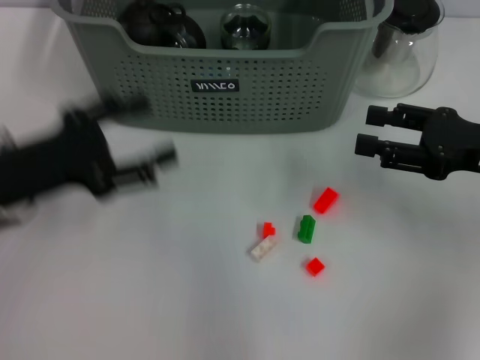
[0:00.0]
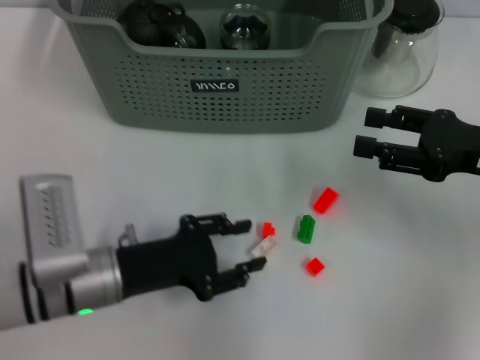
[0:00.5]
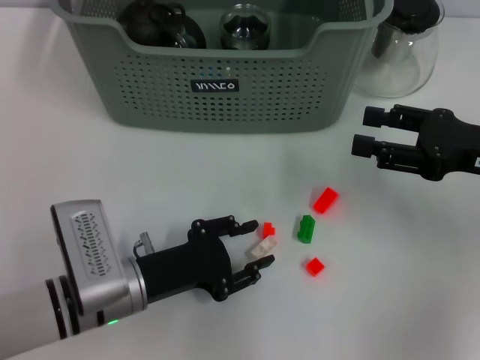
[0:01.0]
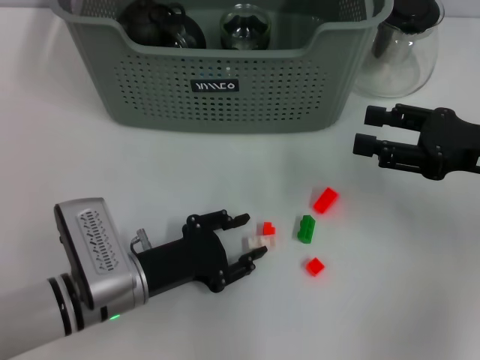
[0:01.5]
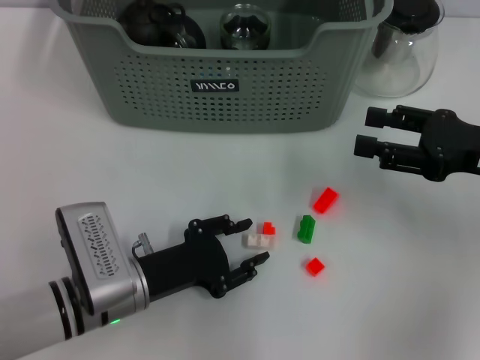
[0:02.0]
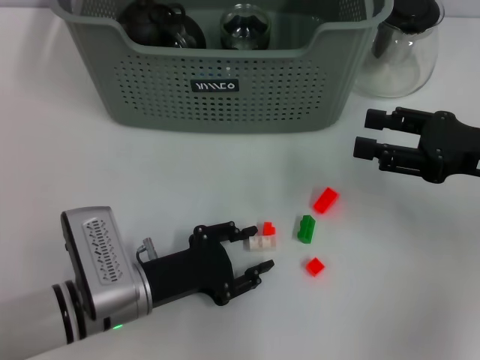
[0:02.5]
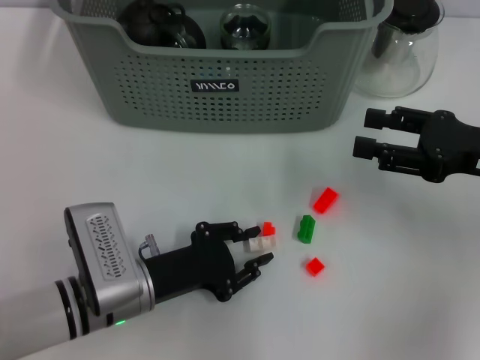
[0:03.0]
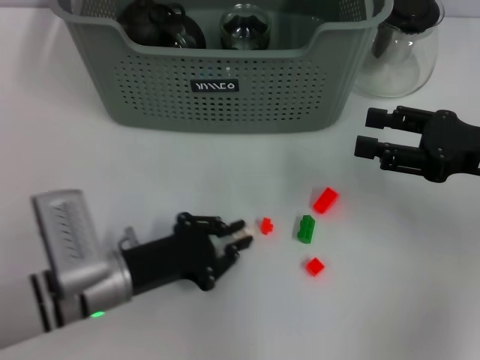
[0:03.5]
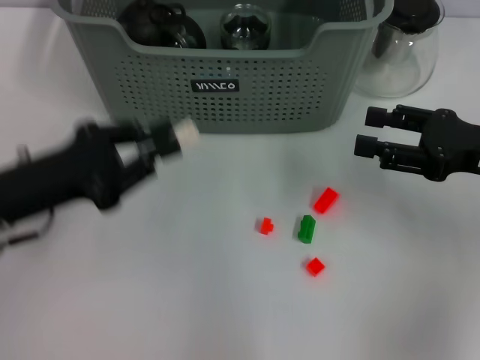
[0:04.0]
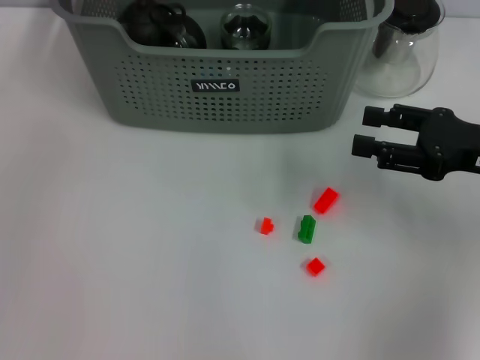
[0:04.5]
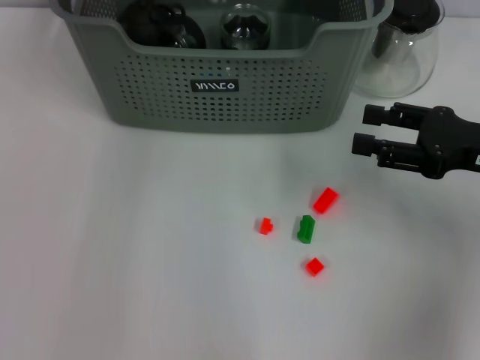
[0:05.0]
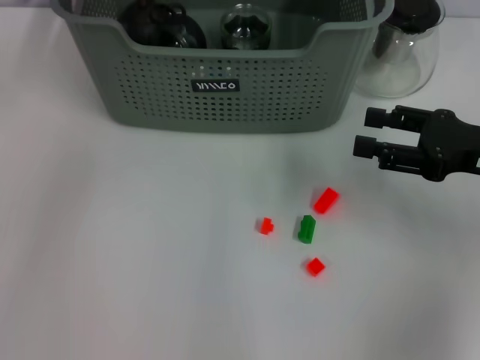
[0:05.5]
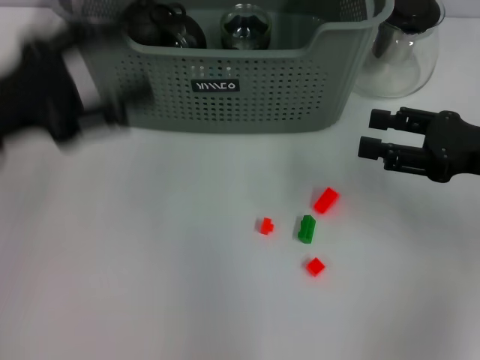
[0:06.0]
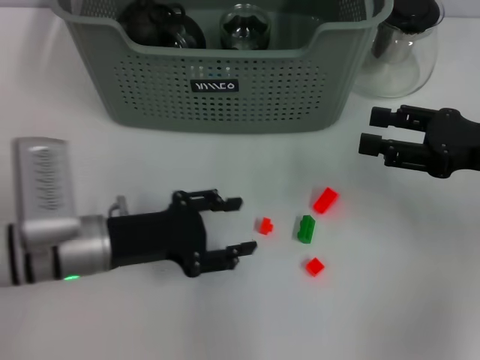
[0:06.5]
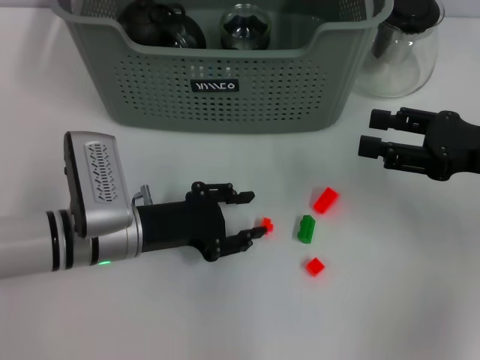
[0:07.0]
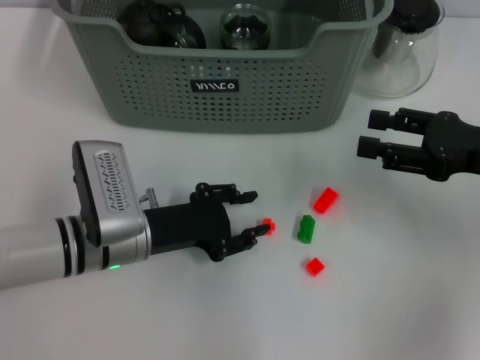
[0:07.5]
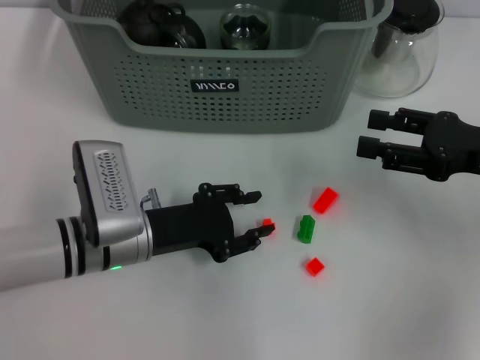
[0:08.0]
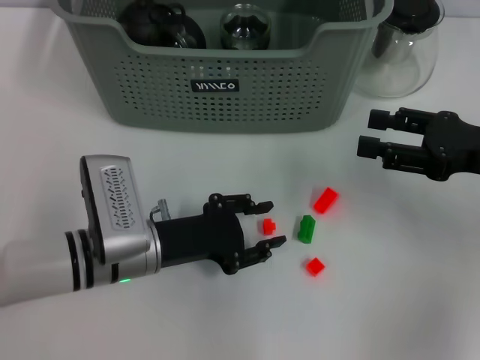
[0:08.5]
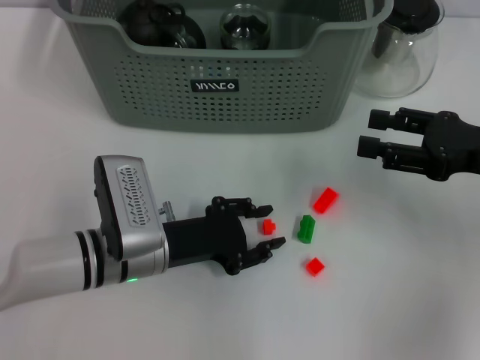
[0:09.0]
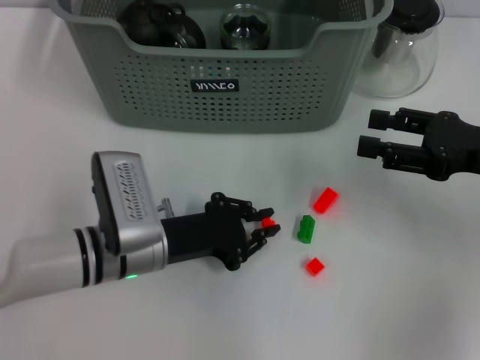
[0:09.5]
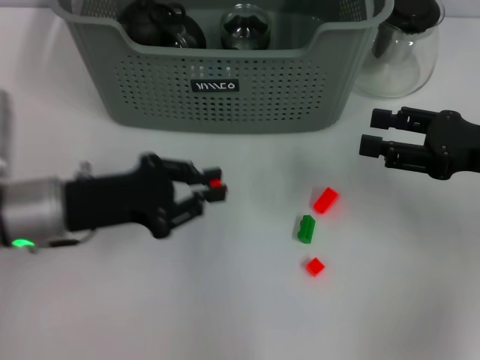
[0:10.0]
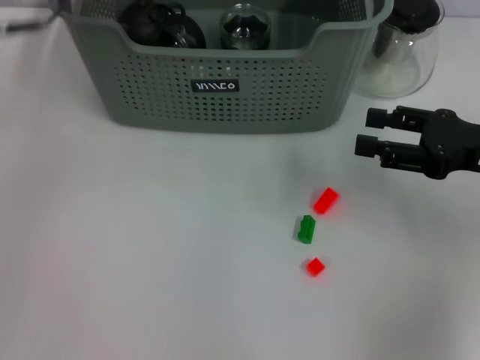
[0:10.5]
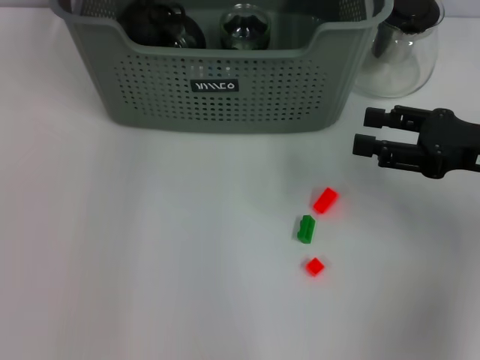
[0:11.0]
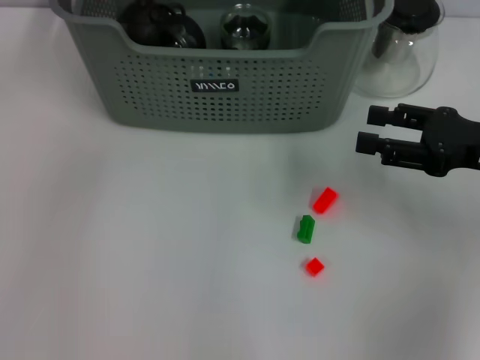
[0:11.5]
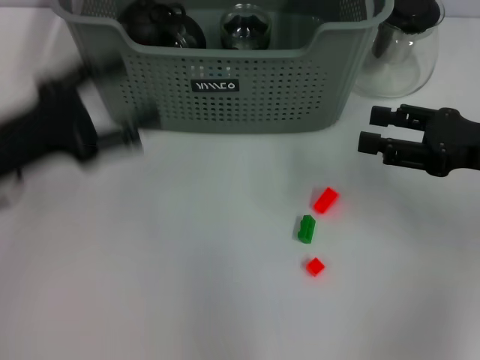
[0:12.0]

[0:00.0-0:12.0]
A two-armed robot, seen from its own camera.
Task of the whole recording: pick up the teacup on the table and place it into the storage bin, pick up the block on the table and place it into the storage bin.
Step, 0:00.0 to 0:03.0: Grasp the white block with left gripper.
Step, 0:03.5 to 0:05.0: Place the white block in the storage box with left gripper.
Step, 0:05.5 to 0:09.0: Grasp the orange block with left gripper.
Step, 0:09.5 to 0:11.0: Place the orange block in the storage box with left gripper.
0:00.0 to 0:02.0: The left gripper moves downward and to the right, approximately 15 cm.
0:02.0 to 0:04.0: The left gripper goes some 15 cm upward and to the left, and closes its fingers.
0:04.0 to 0:06.0: The left gripper goes some 5 cm upward, goes forward and returns, some 20 cm each way, and opens.
0:06.0 to 0:08.0: The left gripper moves downward and to the right, about 20 cm, and closes its fingers.
0:08.0 to 0:10.0: The left gripper goes approximately 10 cm to the left and upward, and closes up.
0:10.0 to 0:12.0: The left gripper heads to the left, covering about 5 cm, reaches about 20 cm forward, then returns, and opens its fingers.

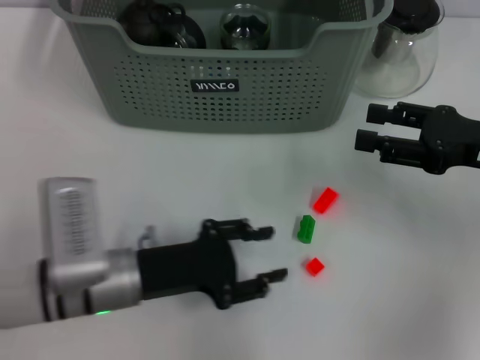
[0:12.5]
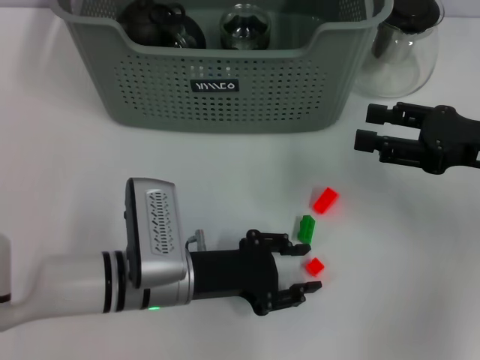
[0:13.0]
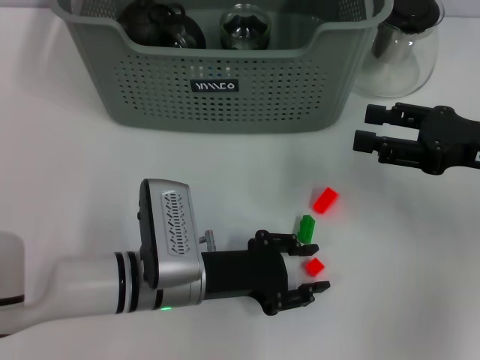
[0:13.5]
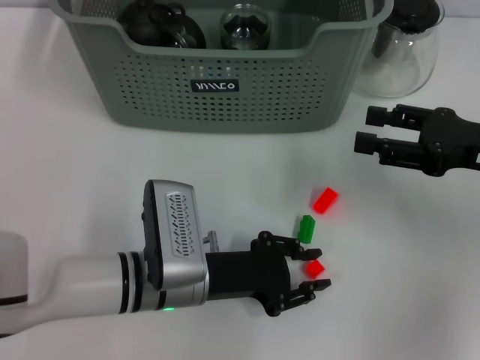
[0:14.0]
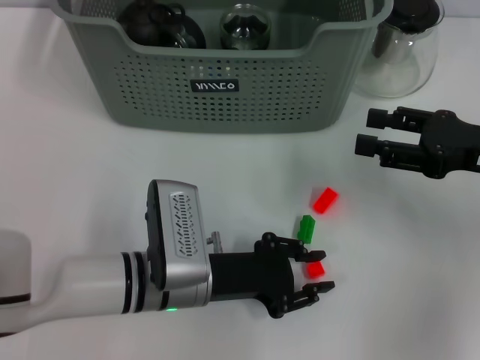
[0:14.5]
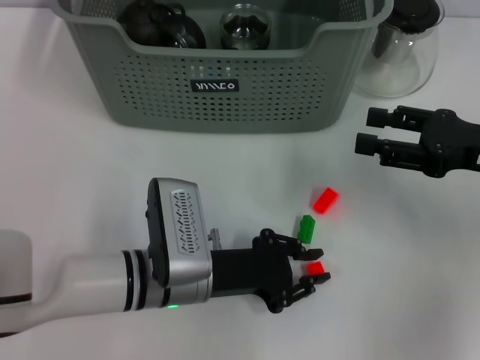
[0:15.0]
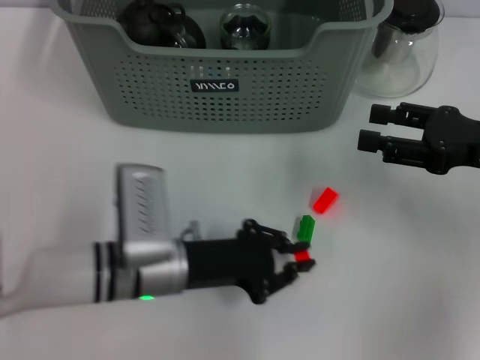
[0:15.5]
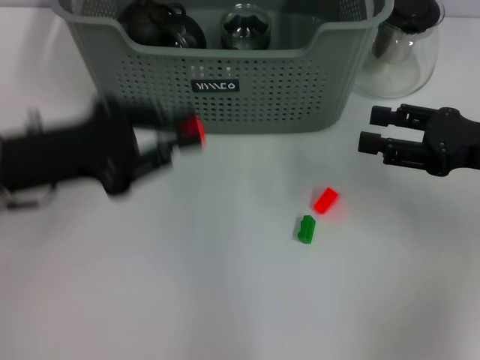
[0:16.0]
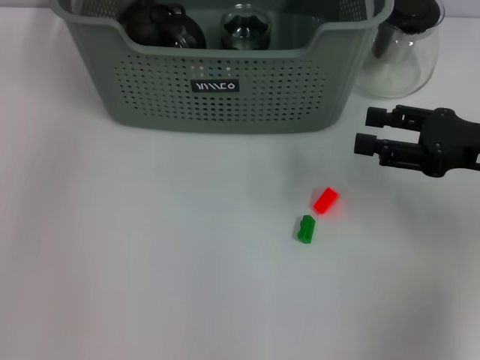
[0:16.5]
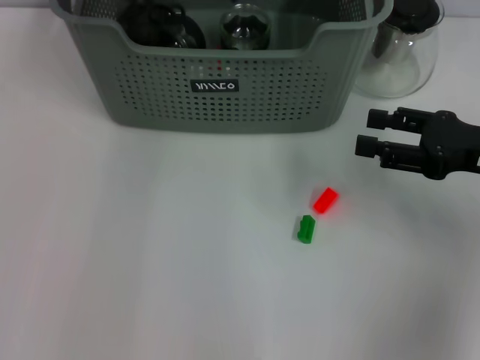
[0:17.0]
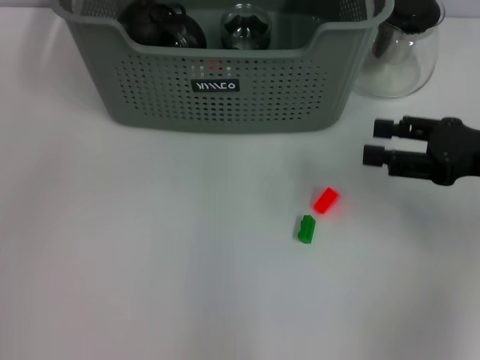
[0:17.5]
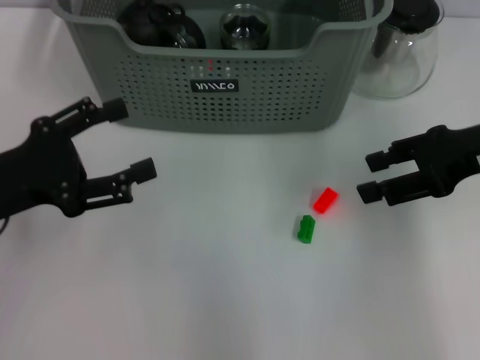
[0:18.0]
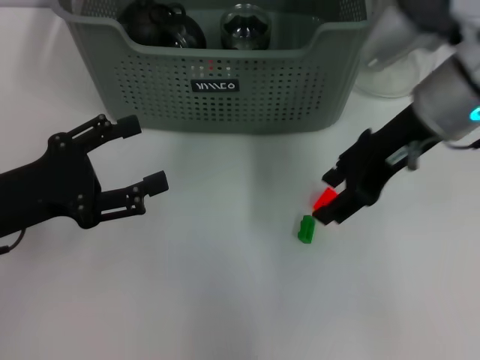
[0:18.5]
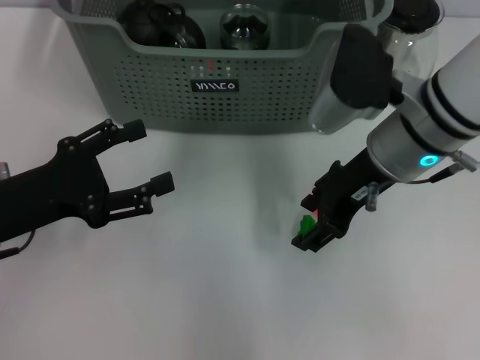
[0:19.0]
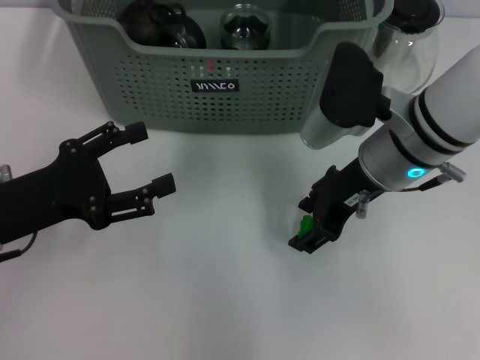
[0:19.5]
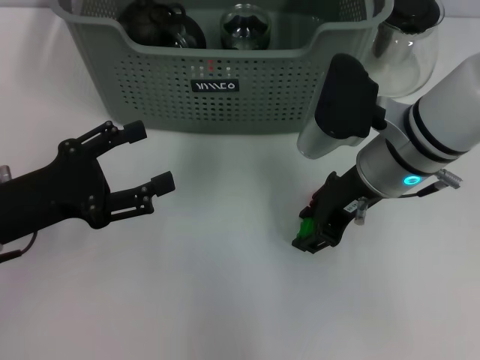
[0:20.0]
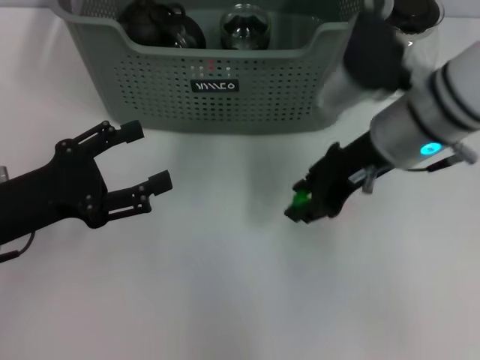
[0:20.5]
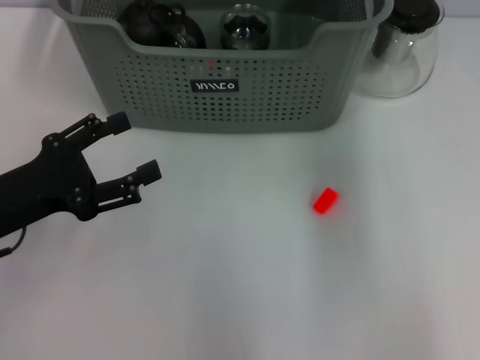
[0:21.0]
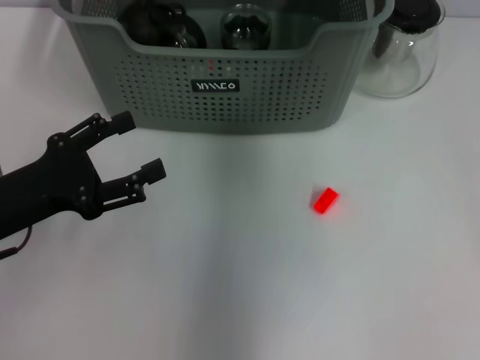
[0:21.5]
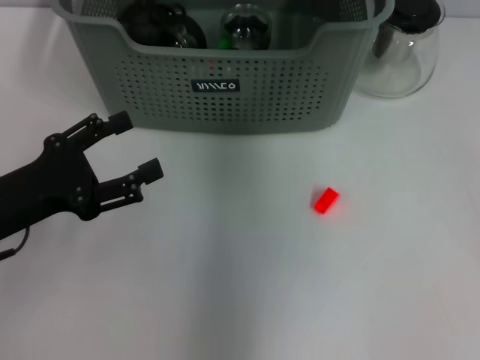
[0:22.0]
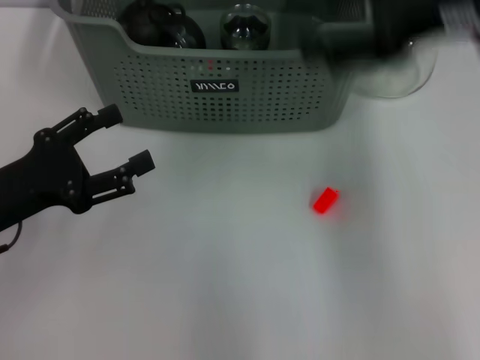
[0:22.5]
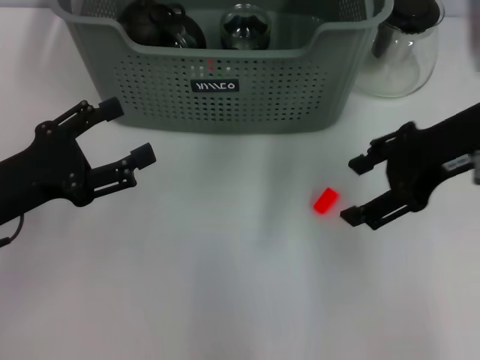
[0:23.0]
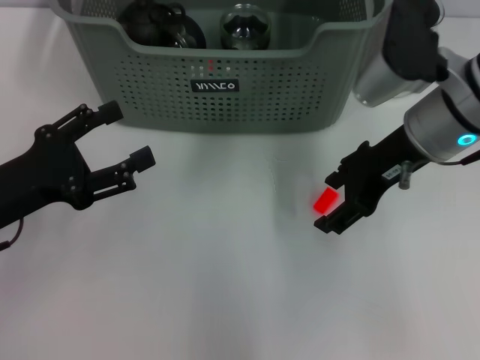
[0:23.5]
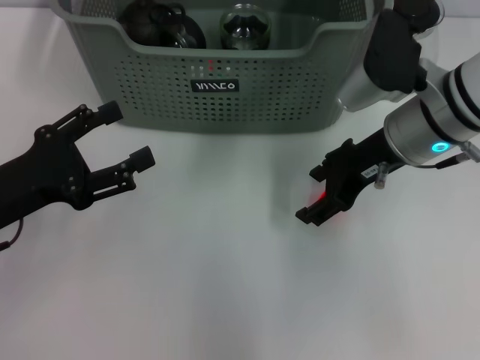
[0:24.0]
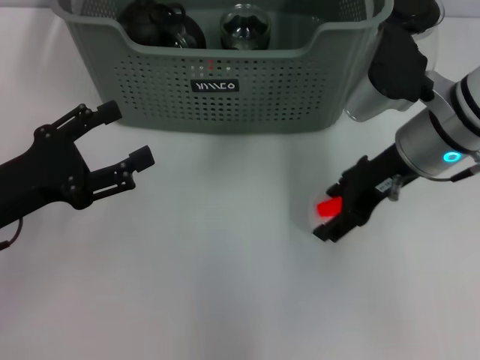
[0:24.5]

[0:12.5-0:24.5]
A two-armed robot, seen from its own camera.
Task of the whole recording: pick up the teacup on the table and place it into the storage bin, pick up the block on the table and place it into the storage bin.
Step, 0:12.5 to 0:15.0: Grasp the orange block with left gripper.
Step, 0:15.5 to 0:17.0: Place the orange block in the storage box with left gripper.
Step, 0:17.5 to 0:20.0: Grasp the green block with right gripper.
Step, 0:20.5 to 0:22.0: Place the green block in the storage box with right gripper.
0:12.5 to 0:14.5: The left gripper heads to the right, covering approximately 5 cm.
0:14.5 to 0:16.5: The left gripper shifts approximately 35 cm upward and forward.
0:16.5 to 0:18.5: The left gripper heads backward and downward, covering some 30 cm, and opens; the right gripper goes about 15 cm to the left, upward and forward.
0:20.5 to 0:22.5: The right gripper moves left and right over approximately 15 cm, changing direction 2 times, and opens up.
0:22.5 to 0:24.5: The right gripper travels downward by about 15 cm.

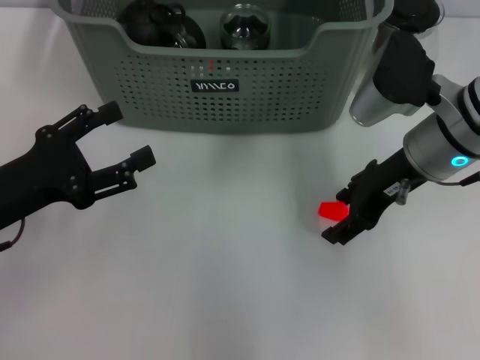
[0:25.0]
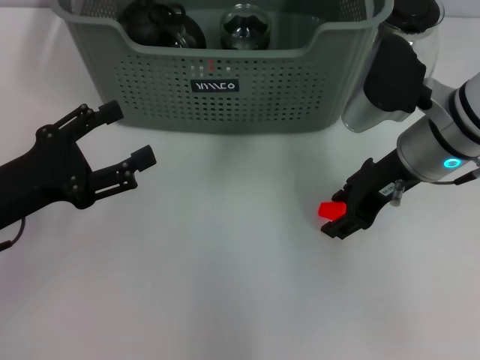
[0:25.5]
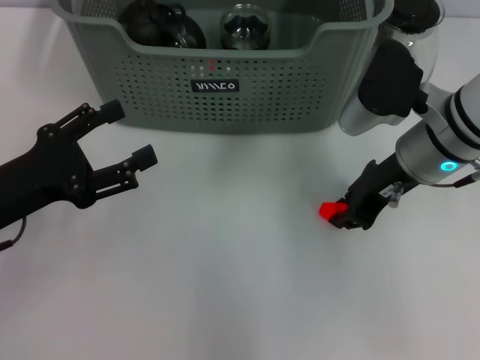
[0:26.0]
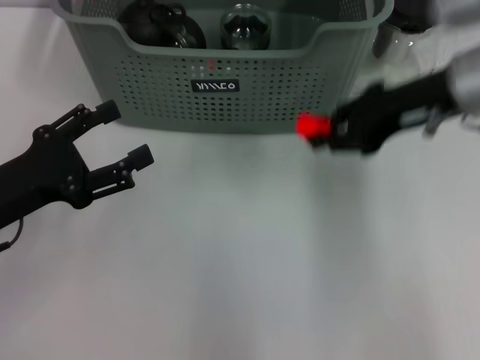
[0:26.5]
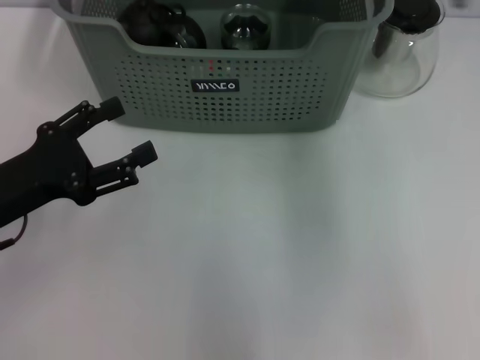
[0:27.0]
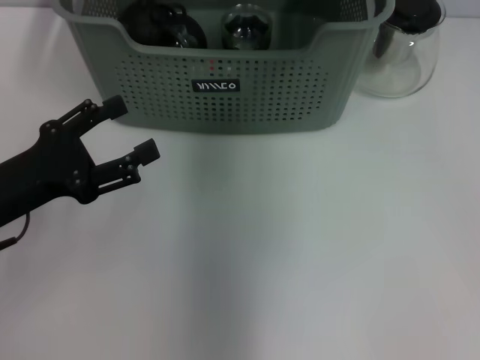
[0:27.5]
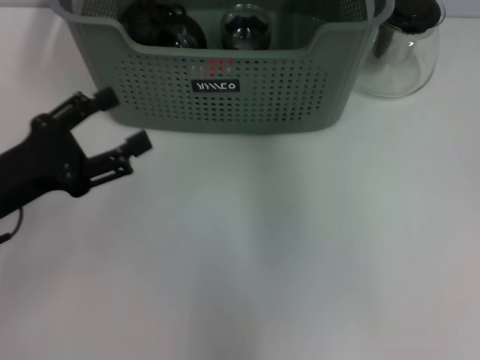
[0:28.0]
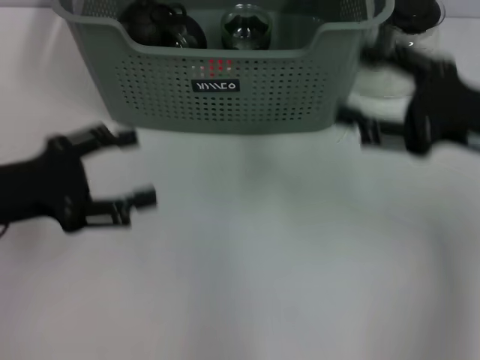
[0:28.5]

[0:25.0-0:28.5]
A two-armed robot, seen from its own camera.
Task of the whole recording: pick up the teacup on the table and place it into the storage bin, pick up the block on the table and place it into the storage bin.
Step, 0:26.5 to 0:27.5: Place the orange block in the storage box with right gripper.
0:25.0 to 0:27.0: The right gripper heads upward, covering roughly 15 cm, and closes.
0:27.0 to 0:28.5: The right gripper moves downward, to the right and backward, roughly 20 cm, and opens up.
